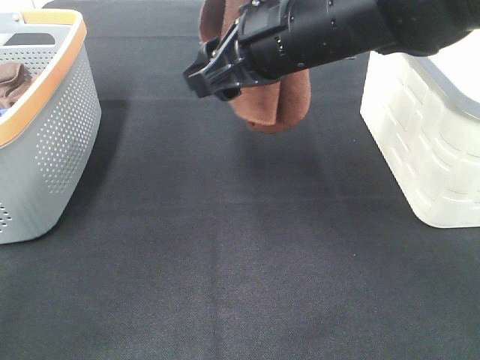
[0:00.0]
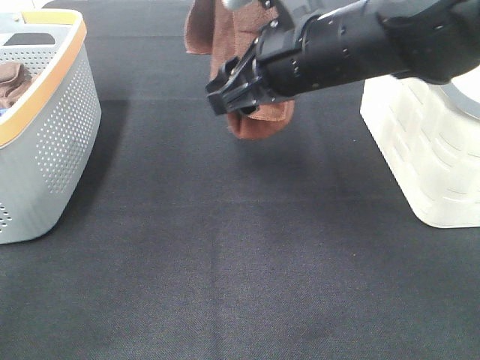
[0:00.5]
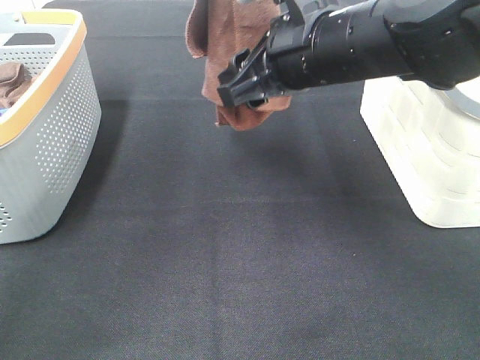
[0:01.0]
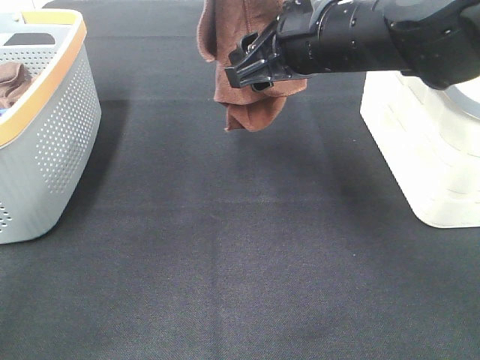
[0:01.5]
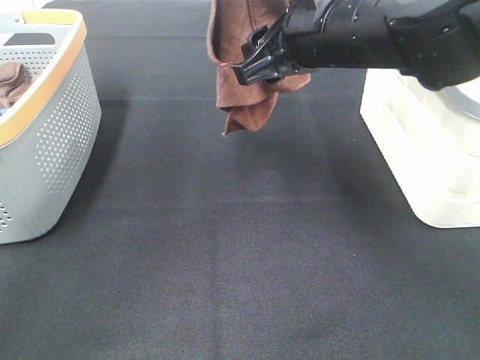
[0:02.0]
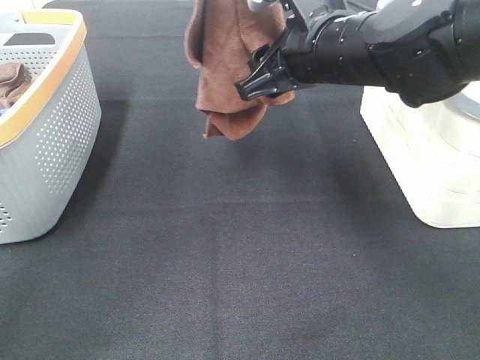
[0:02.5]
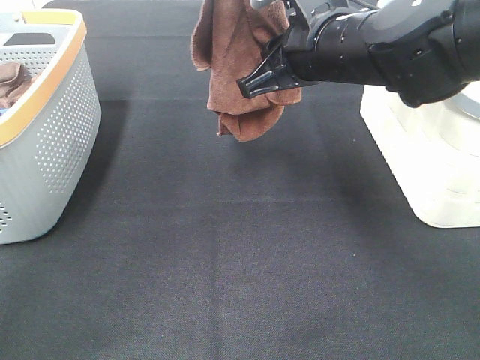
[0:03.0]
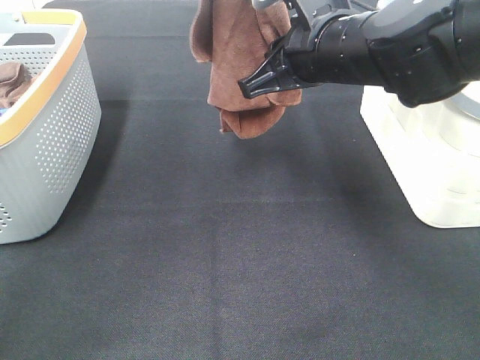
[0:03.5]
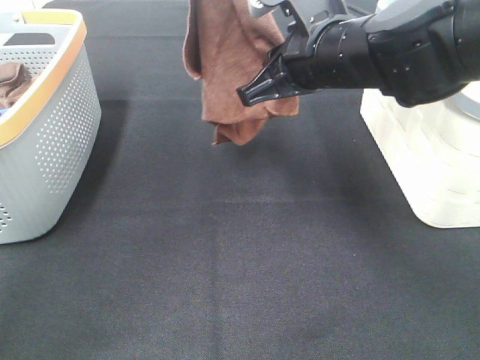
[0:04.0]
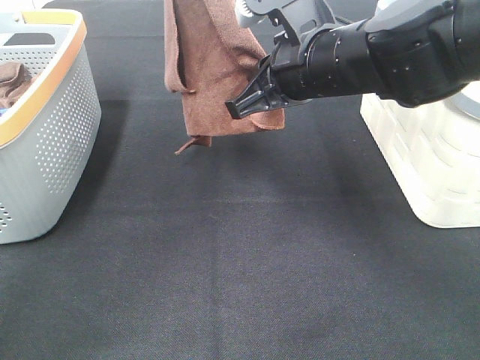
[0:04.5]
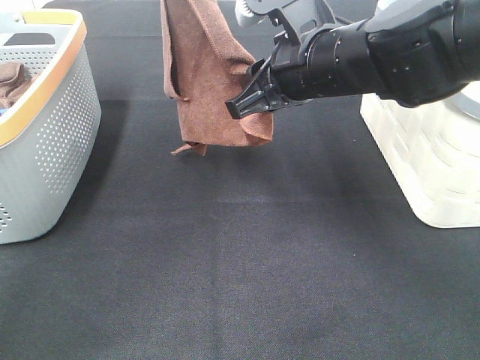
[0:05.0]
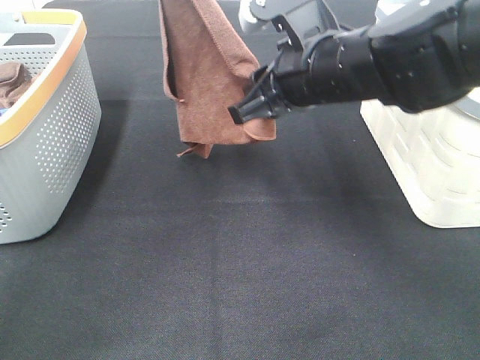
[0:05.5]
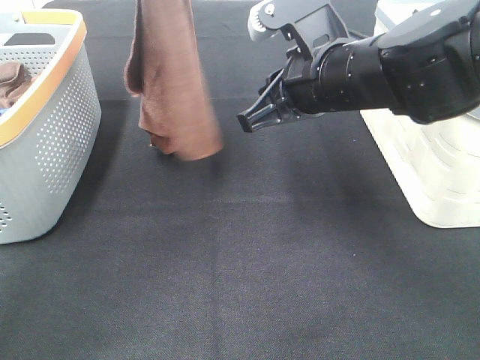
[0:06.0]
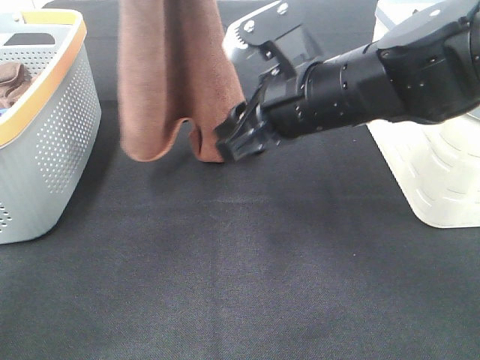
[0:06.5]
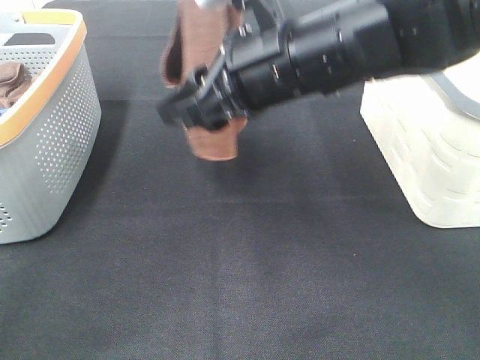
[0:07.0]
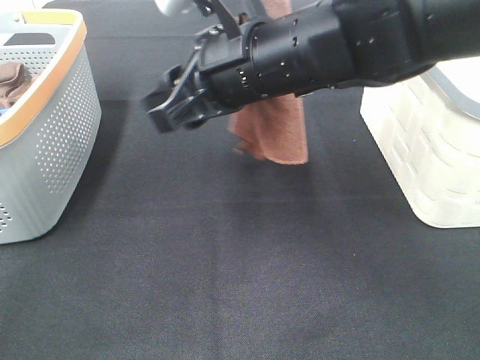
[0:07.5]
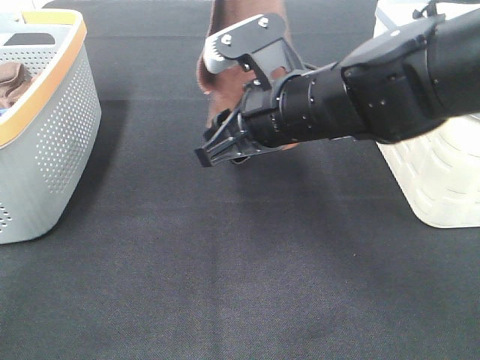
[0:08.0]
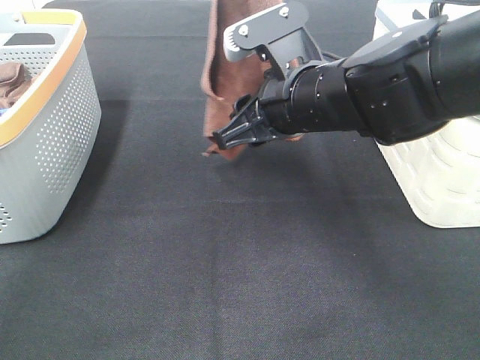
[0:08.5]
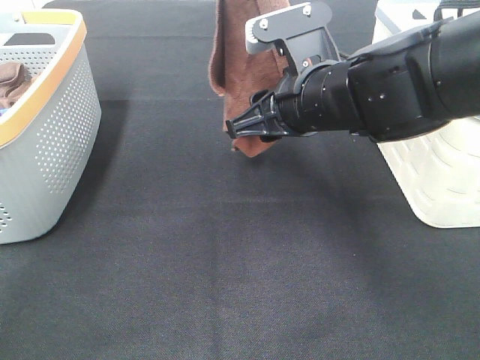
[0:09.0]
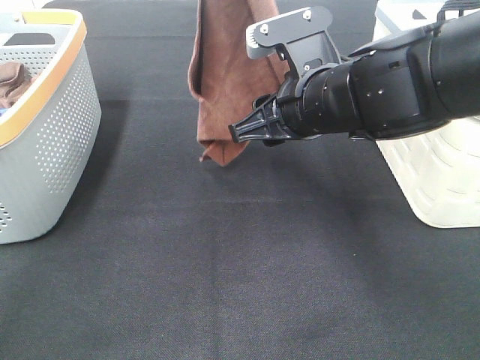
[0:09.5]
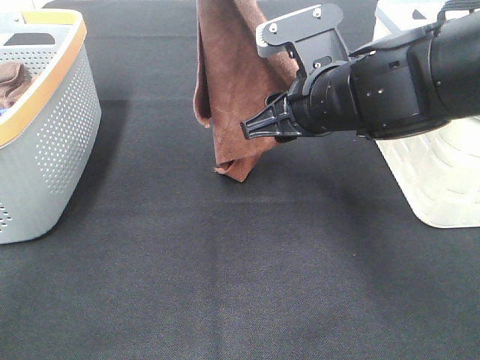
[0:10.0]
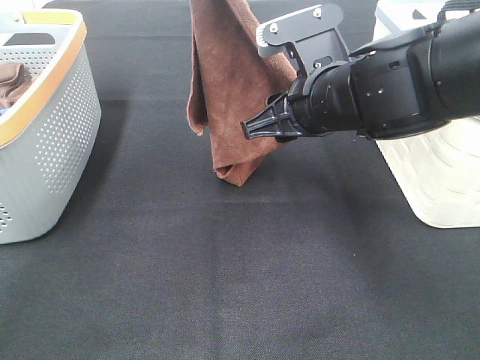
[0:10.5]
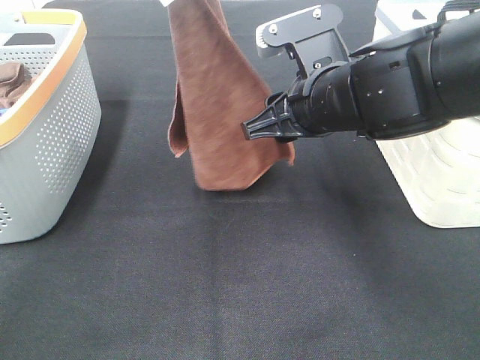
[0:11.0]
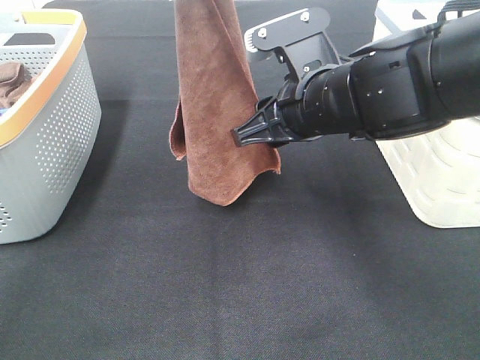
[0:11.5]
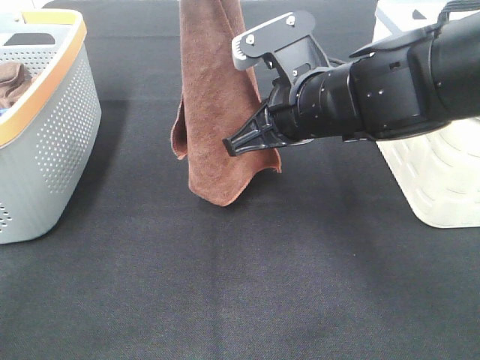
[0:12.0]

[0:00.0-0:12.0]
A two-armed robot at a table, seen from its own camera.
Task of the whole recording: Remove the towel and place it.
Step, 0:00.0 to 0:09.0: Right hand: grab a corner of the brown towel and straighten it.
Step, 0:09.5 to 0:11.0: Left hand: spread the brown towel flat on the table.
Step, 0:09.5 to 0:11.0: Right hand: spread the brown towel flat on the table.
0:02.0 to 0:04.0: The right gripper closes its fingers.
0:04.0 to 0:06.0: The grippers stay close to where they were, moving slightly.
0:06.0 to 0:08.0: The left gripper travels to the right by some 5 cm. Meanwhile the right gripper opens.
0:10.0 to 0:12.0: The right gripper closes.

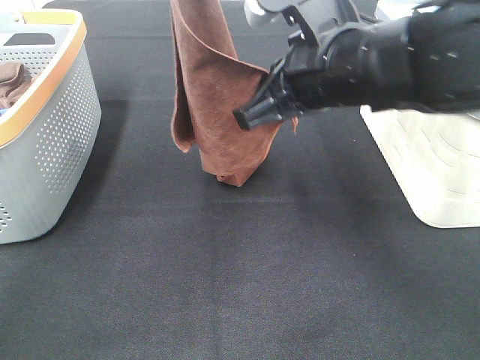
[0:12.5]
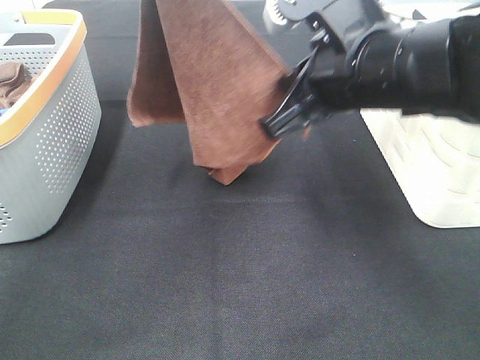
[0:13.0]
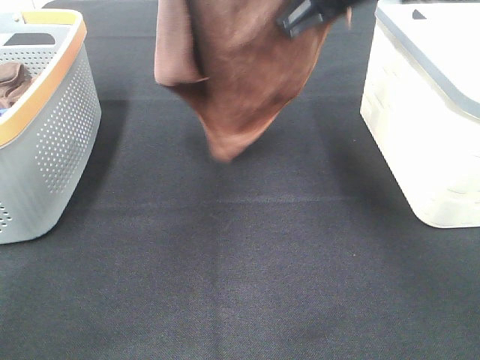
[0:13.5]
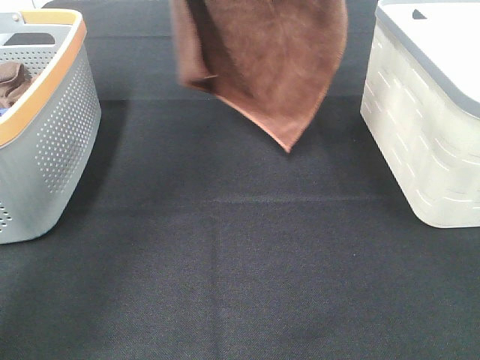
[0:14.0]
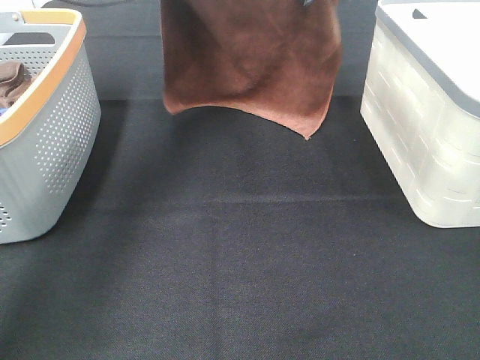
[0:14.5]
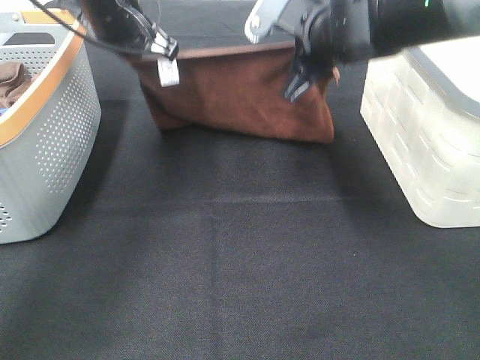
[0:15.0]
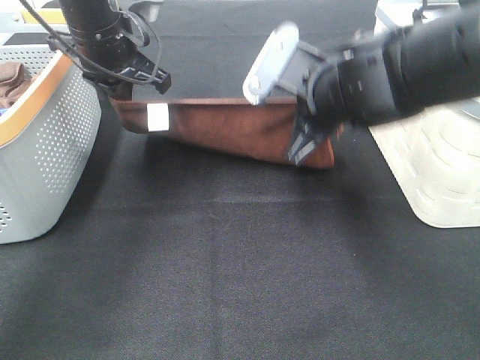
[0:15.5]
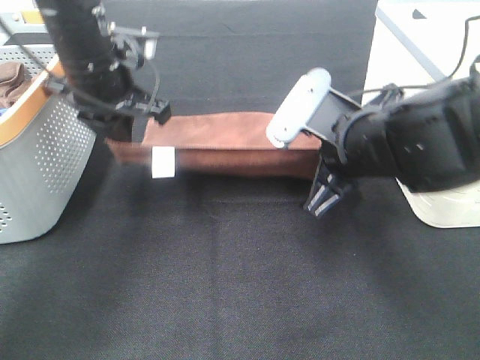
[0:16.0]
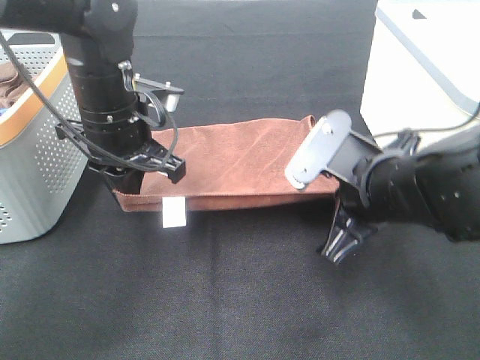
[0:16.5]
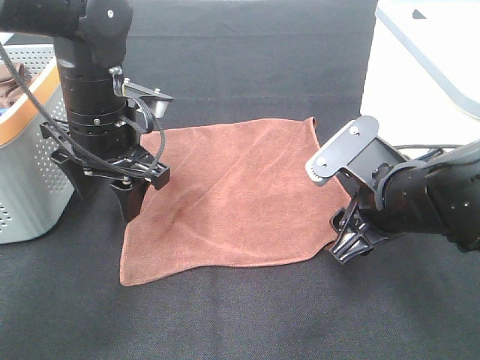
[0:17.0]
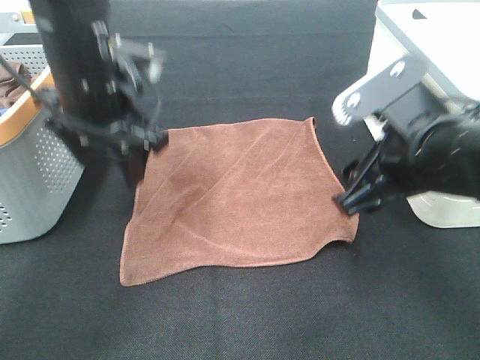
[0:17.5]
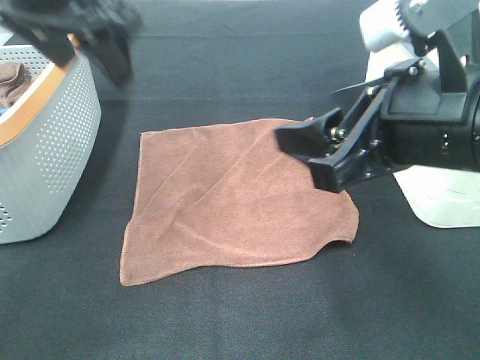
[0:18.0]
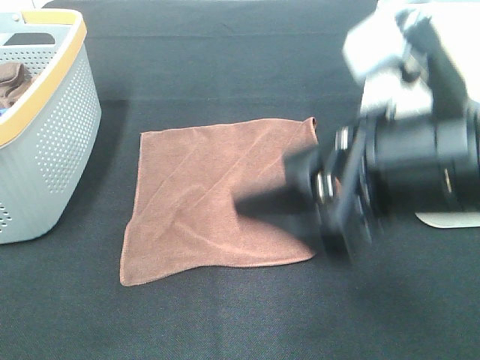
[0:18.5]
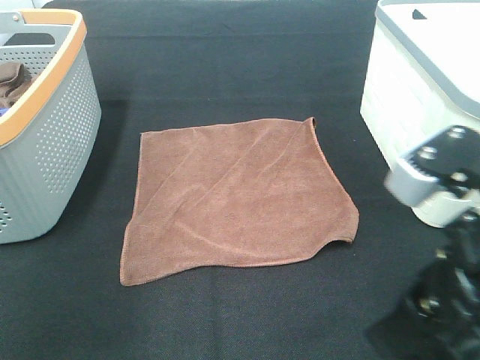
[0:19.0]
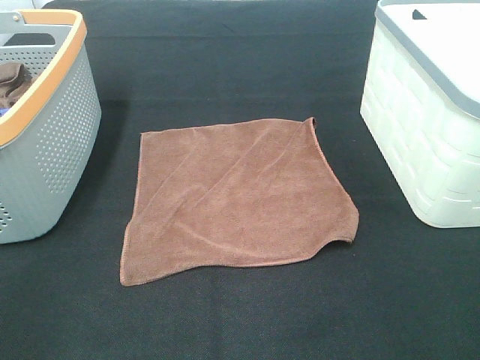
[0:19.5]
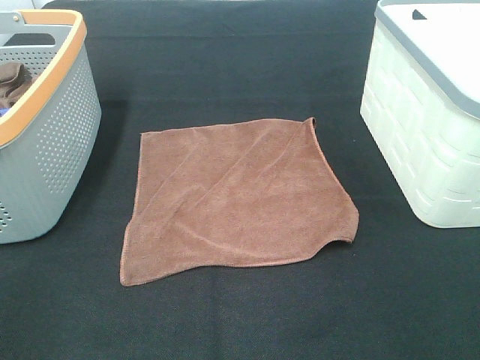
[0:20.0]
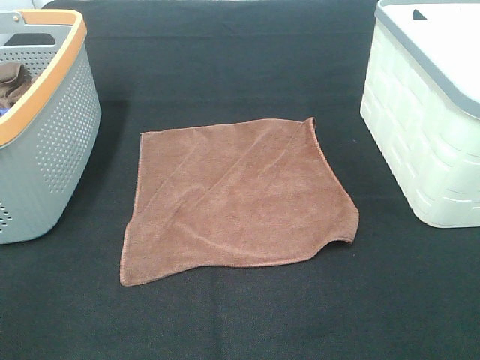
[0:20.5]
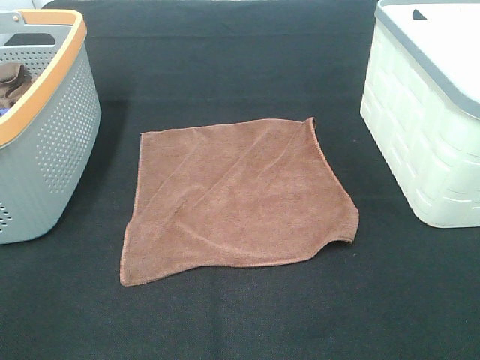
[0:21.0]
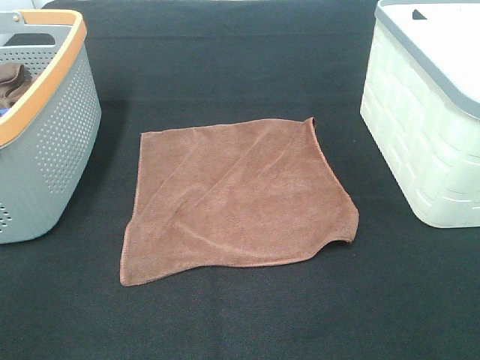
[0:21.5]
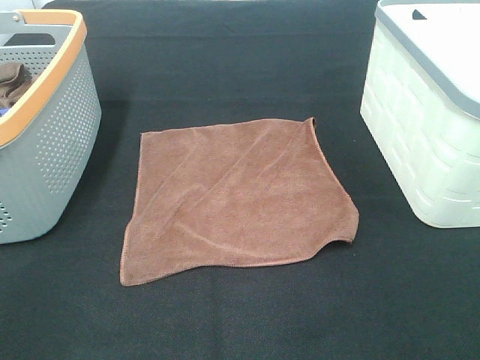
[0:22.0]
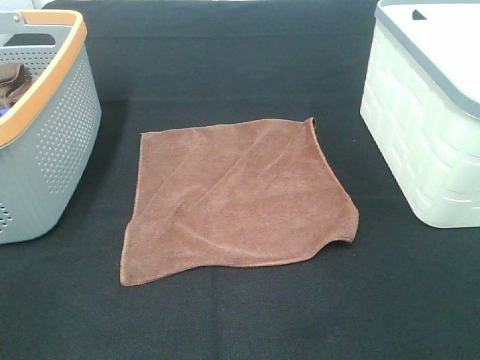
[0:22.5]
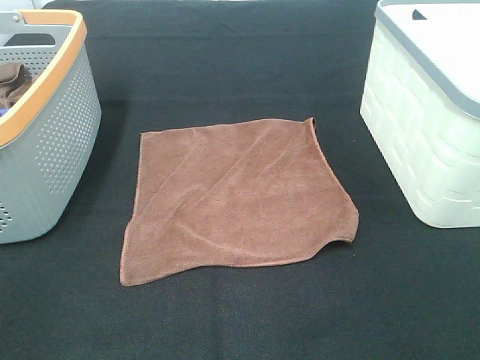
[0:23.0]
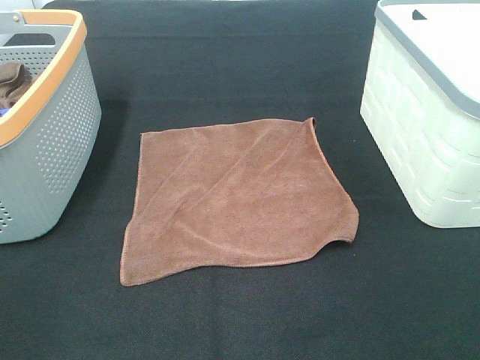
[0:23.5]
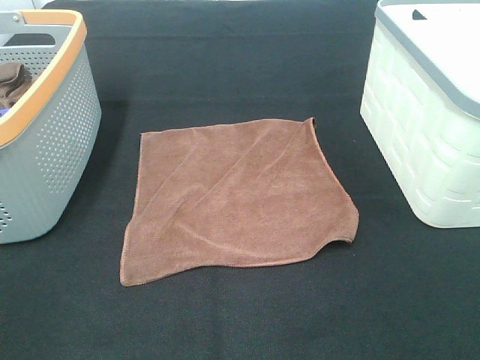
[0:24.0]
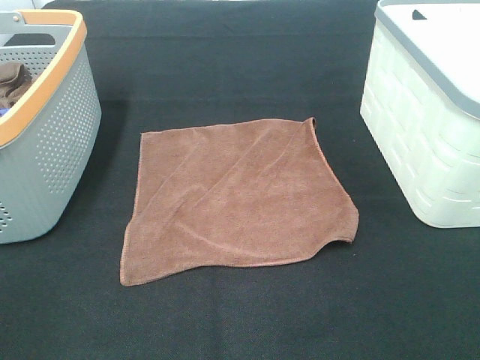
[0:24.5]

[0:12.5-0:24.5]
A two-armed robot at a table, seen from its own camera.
Task of the whole recording: Remove the towel and place it.
0:12.5 to 0:14.5: The right gripper shifts some 15 cm forward. Meanwhile the left gripper heads forward and downward, covering about 20 cm.
0:14.5 to 0:16.5: Both grippers move backward and downward, approximately 20 cm.
0:16.5 to 0:18.5: The left gripper shifts roughly 30 cm upward and backward, and opens its fingers, while the right gripper goes roughly 15 cm upward and backward, and opens up.
0:18.5 to 0:20.5: The right gripper is displaced to the right and backward by roughly 20 cm. The left gripper moves backward, downward and to the left, approximately 30 cm.
